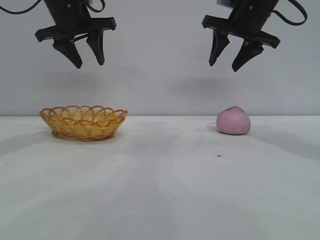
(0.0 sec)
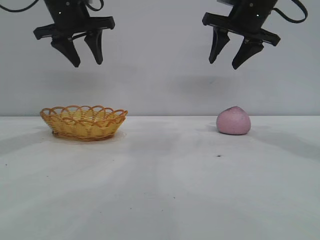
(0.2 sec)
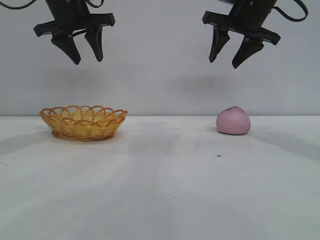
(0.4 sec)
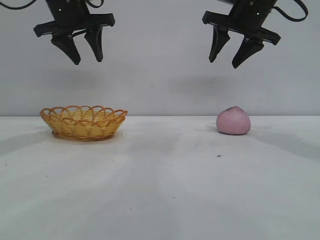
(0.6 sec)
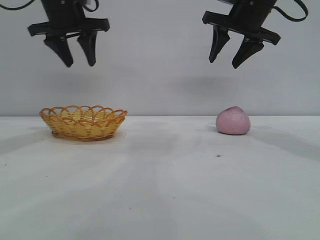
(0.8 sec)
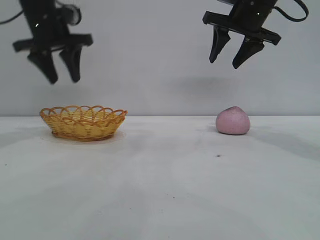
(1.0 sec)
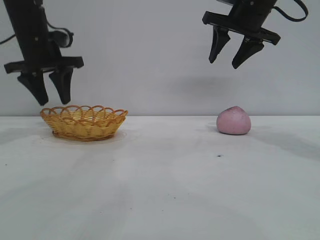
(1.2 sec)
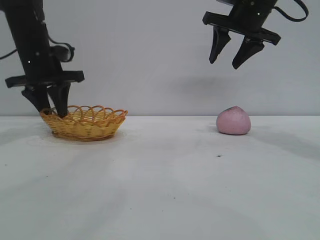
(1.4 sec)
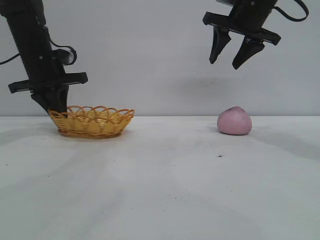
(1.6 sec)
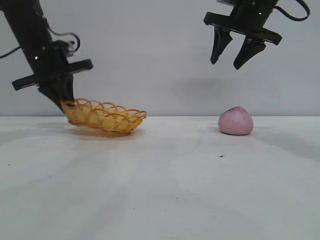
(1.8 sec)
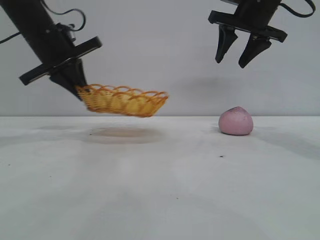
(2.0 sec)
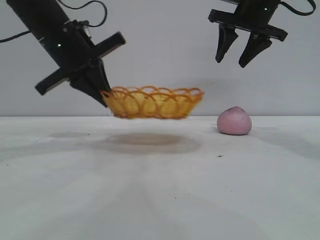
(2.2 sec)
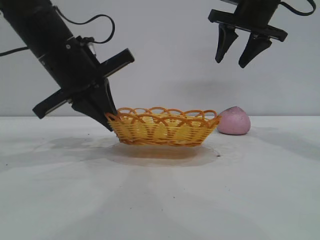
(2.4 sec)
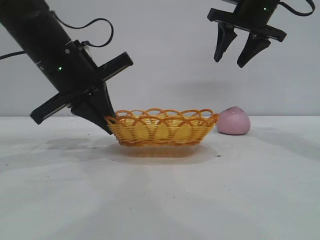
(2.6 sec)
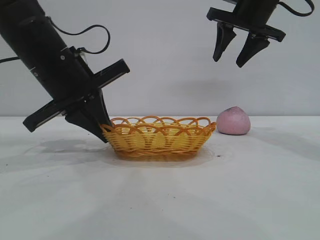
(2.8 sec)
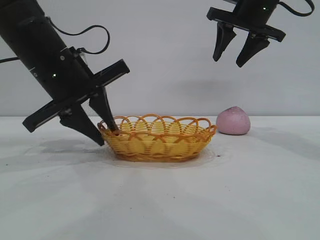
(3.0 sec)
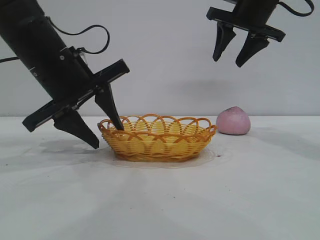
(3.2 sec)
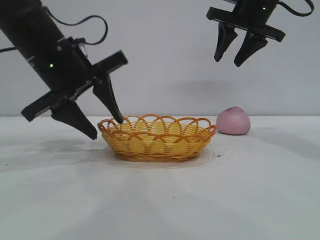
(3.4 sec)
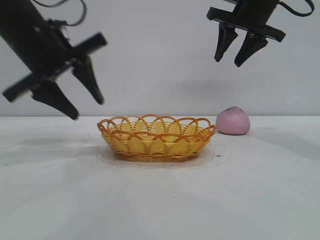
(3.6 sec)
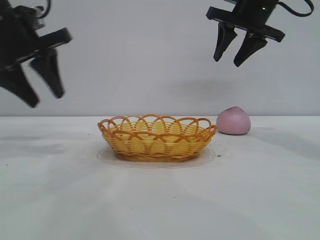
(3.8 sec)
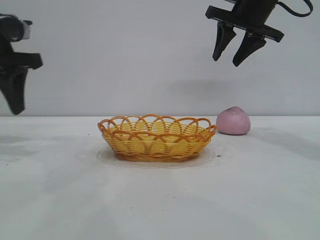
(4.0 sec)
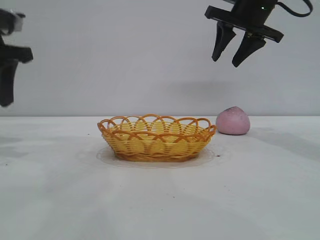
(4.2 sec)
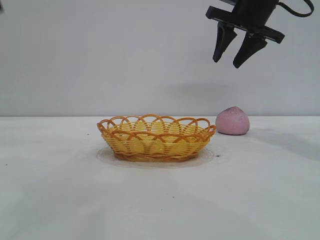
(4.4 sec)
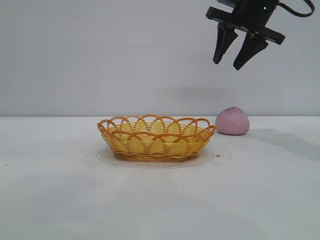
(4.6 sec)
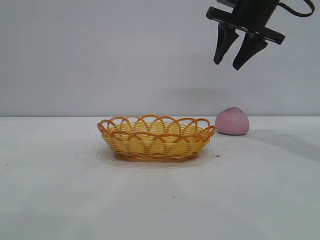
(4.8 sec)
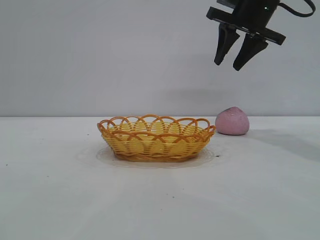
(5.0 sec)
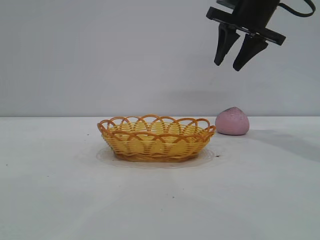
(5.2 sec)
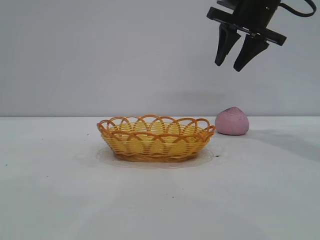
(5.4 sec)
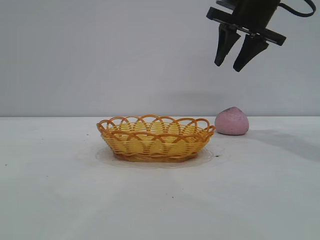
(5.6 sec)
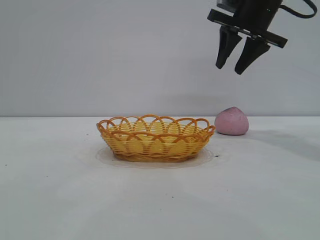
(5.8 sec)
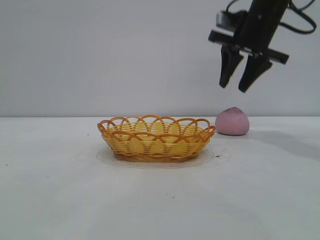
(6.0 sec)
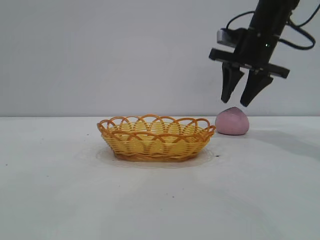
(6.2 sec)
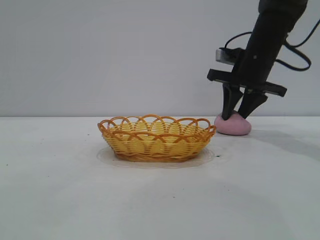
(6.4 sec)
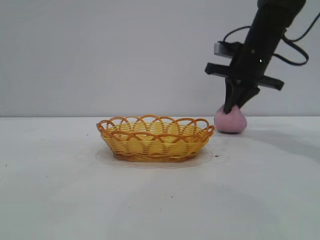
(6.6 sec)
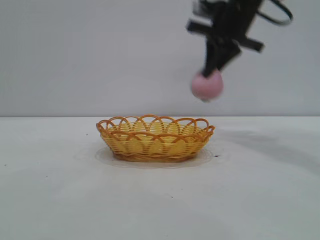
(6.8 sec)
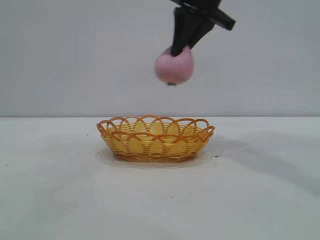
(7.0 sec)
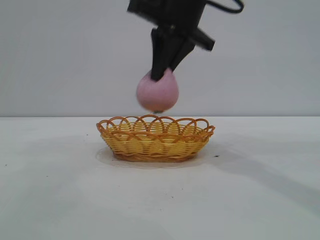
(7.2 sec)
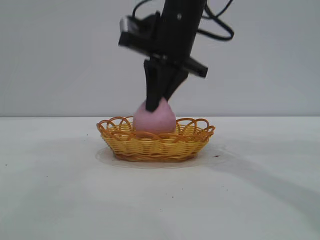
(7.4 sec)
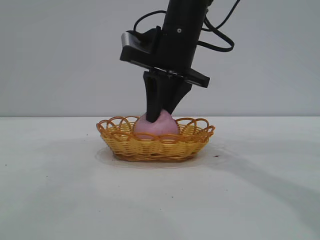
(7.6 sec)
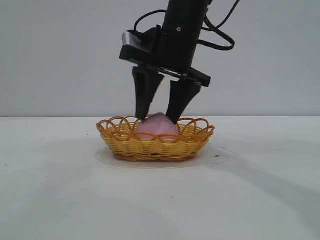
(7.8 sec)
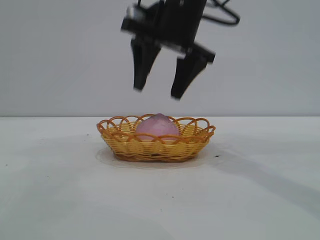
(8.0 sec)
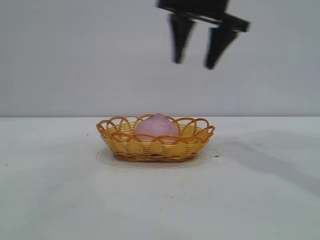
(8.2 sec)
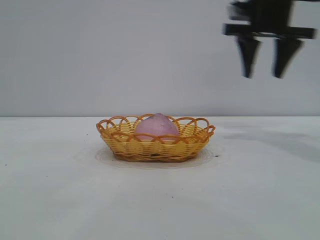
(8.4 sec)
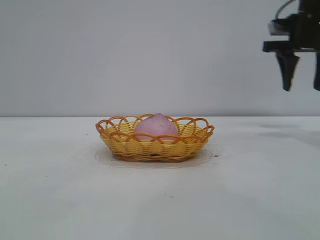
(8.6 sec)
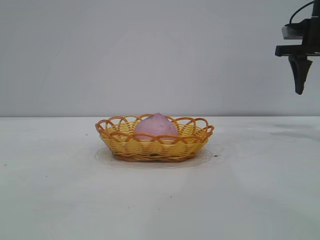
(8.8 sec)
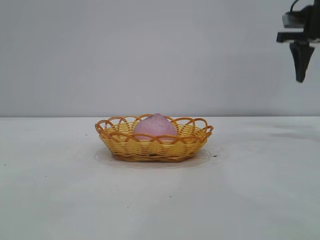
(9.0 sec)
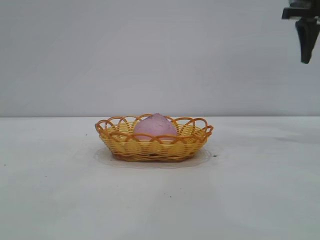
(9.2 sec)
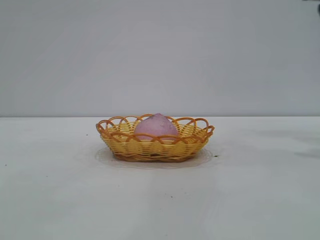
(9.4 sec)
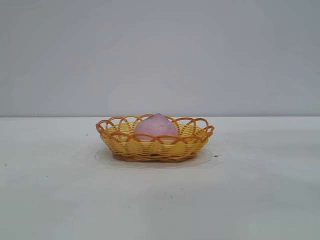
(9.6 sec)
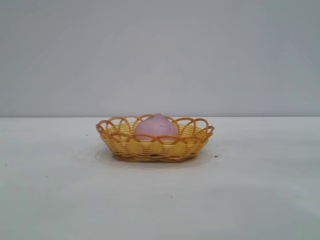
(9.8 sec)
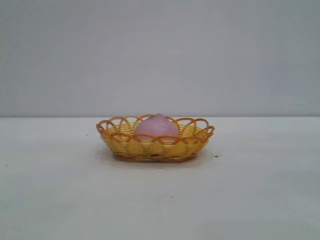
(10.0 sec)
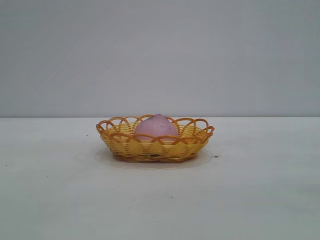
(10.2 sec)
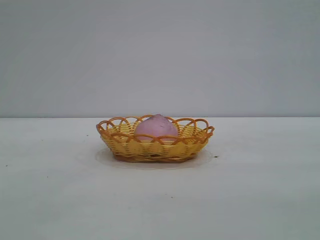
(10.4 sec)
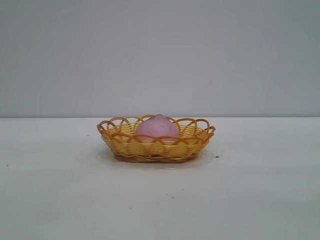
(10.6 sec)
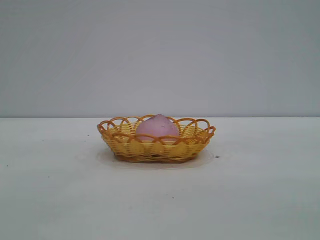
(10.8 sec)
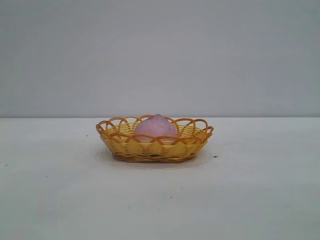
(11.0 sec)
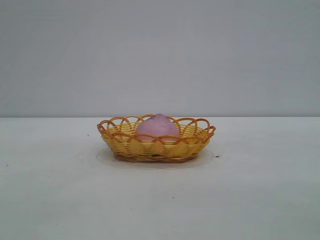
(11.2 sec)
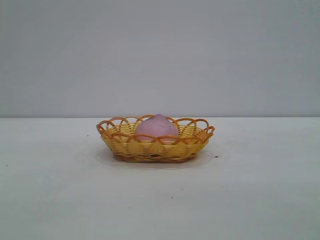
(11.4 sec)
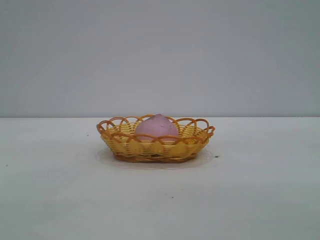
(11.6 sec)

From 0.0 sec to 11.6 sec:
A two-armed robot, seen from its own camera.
Task of the whole recording: pick up the peach and put it into the basket.
Step, from 0.0 sec to 3.6 sec: Move the basket to the center of view.
Step, from 3.8 sec to 6.6 sec: Pick up the peach.
Step, from 6.8 sec to 8.0 sec: place the peach into the basket.

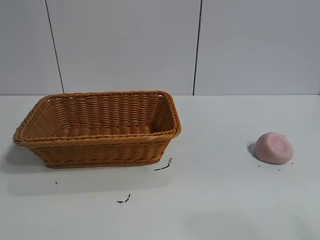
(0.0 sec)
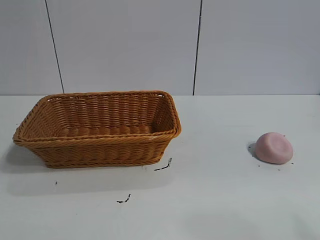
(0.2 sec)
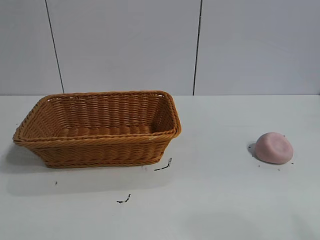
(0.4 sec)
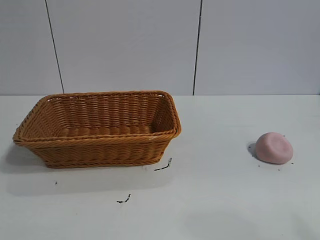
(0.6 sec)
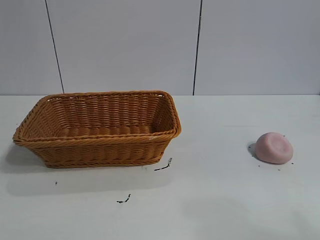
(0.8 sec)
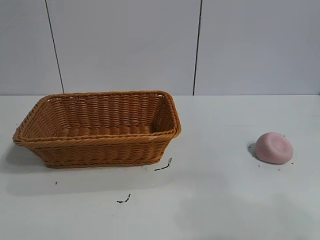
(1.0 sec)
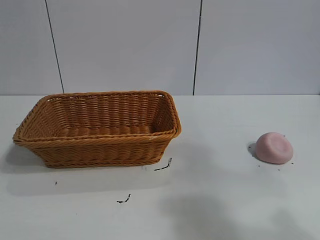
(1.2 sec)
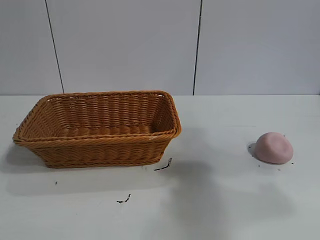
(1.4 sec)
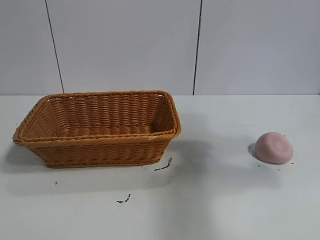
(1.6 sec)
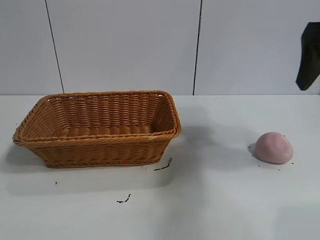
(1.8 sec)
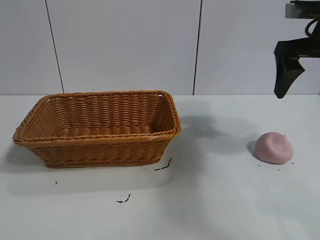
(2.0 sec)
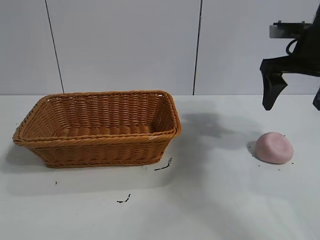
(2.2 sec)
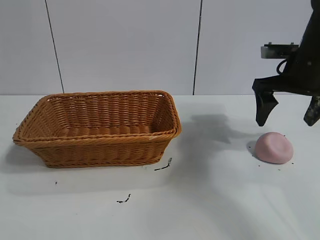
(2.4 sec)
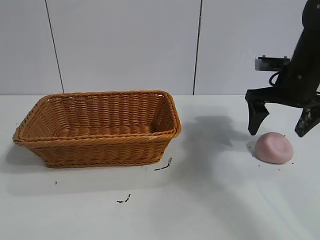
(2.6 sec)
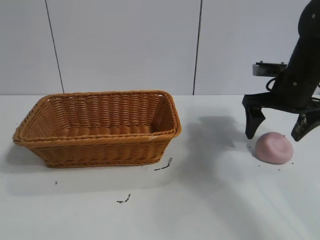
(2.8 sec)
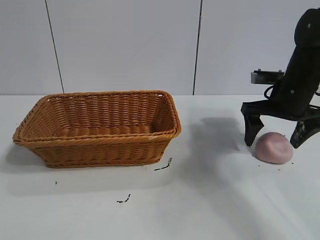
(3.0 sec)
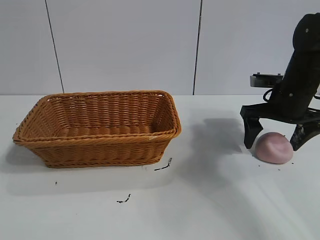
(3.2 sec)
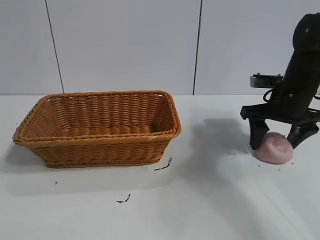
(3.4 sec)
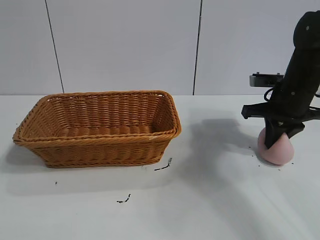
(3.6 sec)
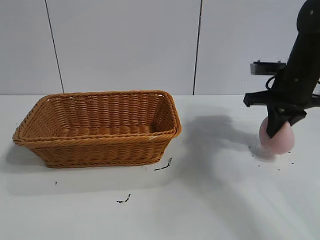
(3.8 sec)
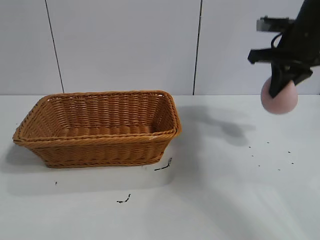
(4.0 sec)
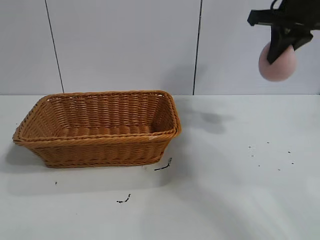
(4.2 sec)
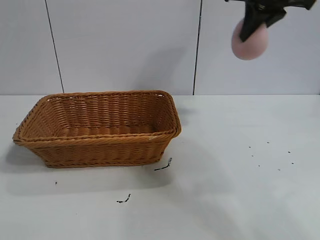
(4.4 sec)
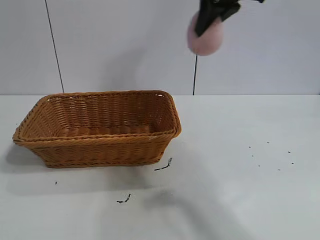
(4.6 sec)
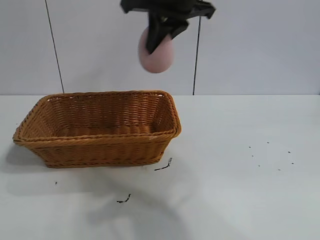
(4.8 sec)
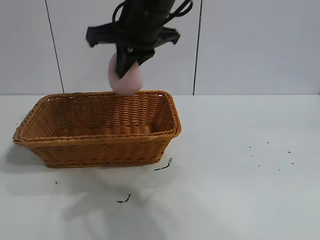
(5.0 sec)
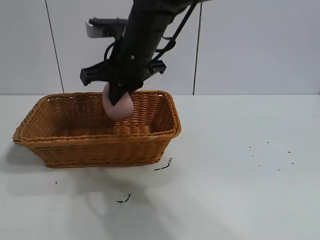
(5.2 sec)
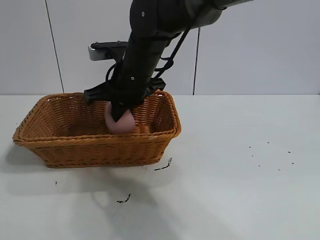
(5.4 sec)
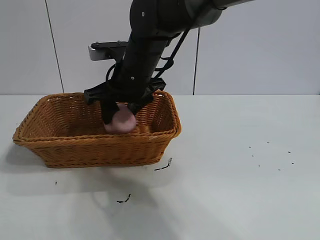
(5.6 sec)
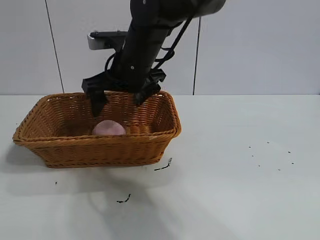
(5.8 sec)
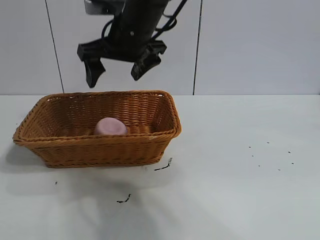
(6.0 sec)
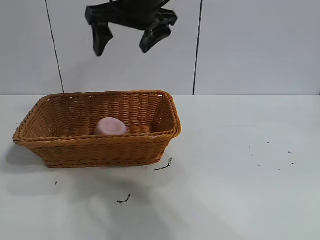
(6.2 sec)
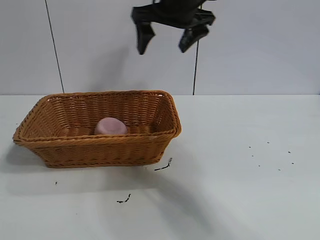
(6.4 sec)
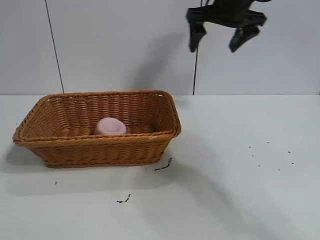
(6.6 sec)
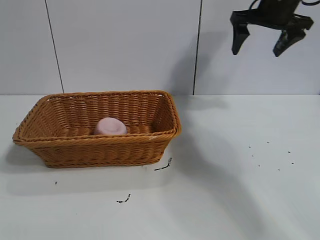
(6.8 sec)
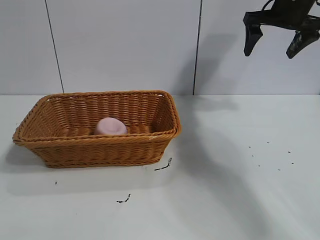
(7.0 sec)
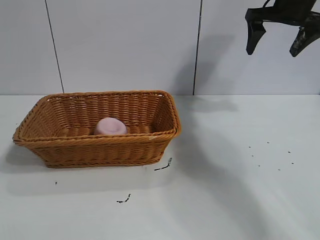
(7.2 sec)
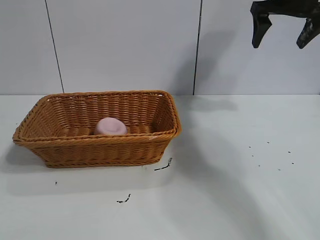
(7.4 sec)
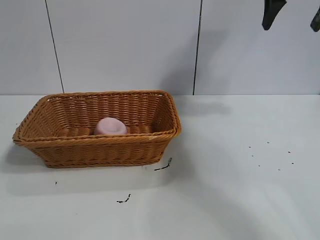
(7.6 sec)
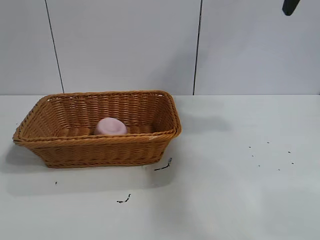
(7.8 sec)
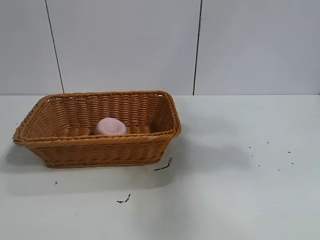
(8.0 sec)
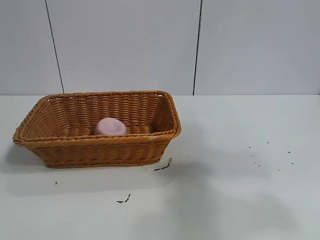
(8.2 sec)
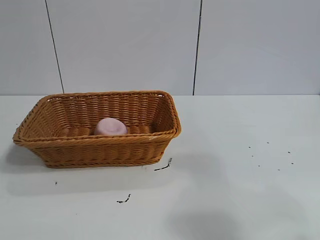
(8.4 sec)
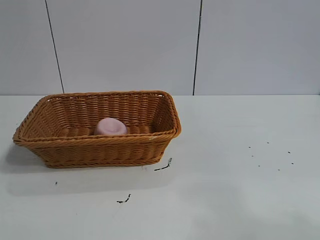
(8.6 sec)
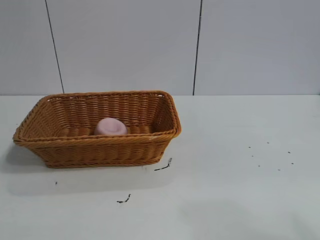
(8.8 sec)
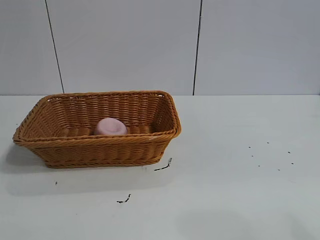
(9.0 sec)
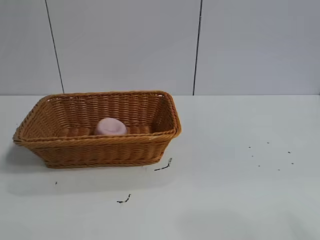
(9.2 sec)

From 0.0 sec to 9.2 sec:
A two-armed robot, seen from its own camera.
Task of the whole recording: pick up the peach and put it into the basket.
Step, from 0.6 sec to 3.6 sec: Grasp the peach with right gripper.
Step, from 3.8 sec to 5.6 sec: Place the peach in the basket with right gripper.
